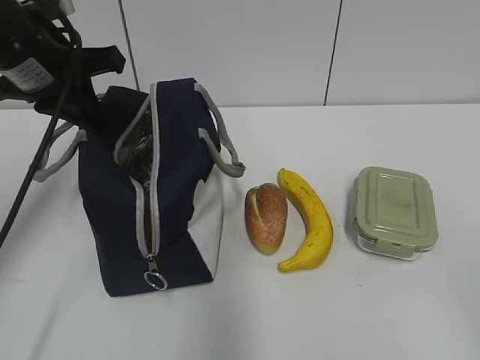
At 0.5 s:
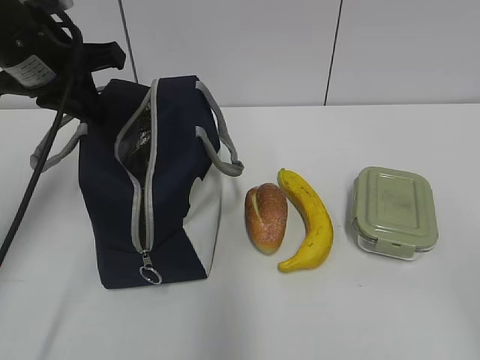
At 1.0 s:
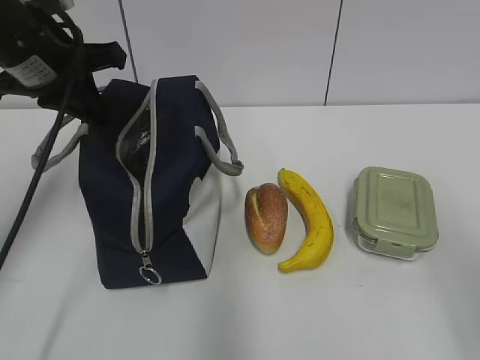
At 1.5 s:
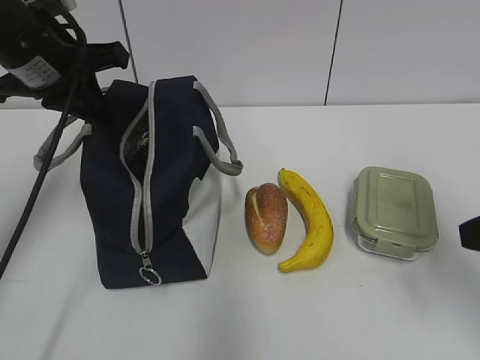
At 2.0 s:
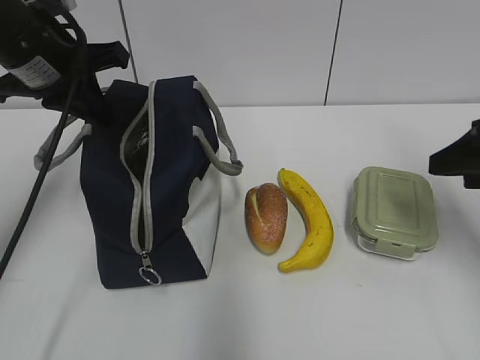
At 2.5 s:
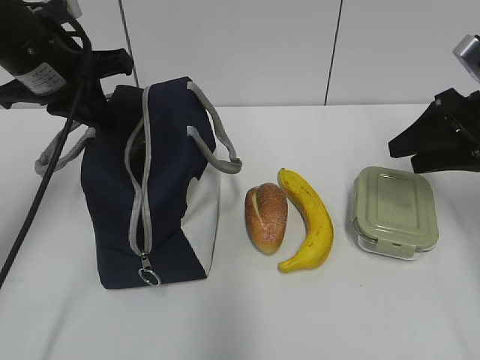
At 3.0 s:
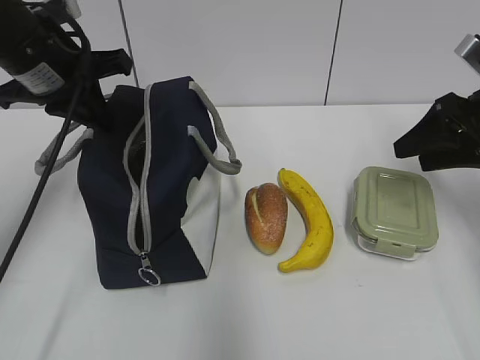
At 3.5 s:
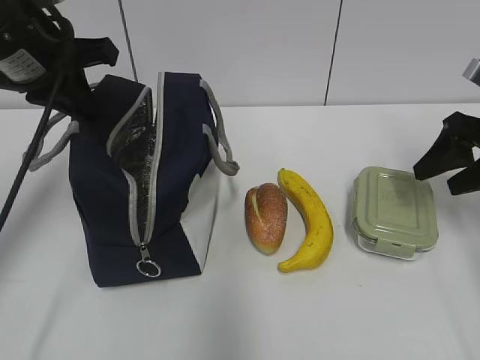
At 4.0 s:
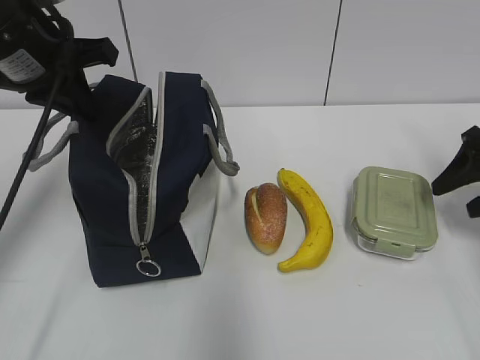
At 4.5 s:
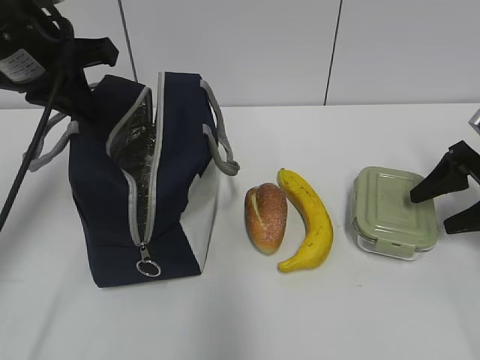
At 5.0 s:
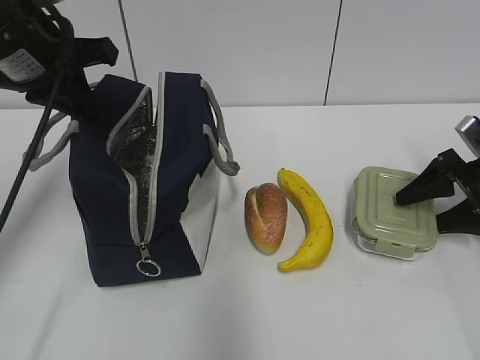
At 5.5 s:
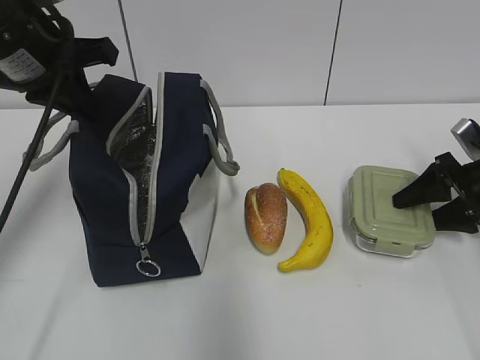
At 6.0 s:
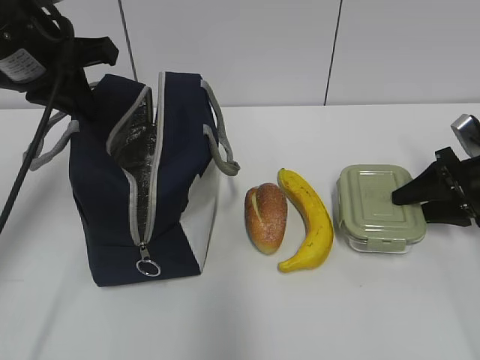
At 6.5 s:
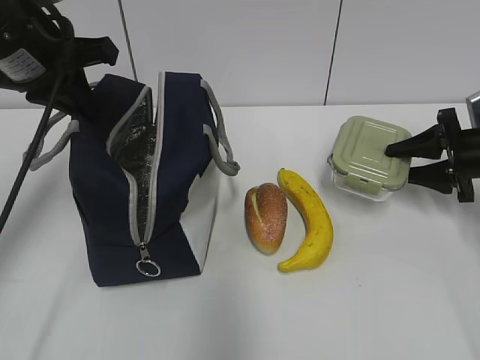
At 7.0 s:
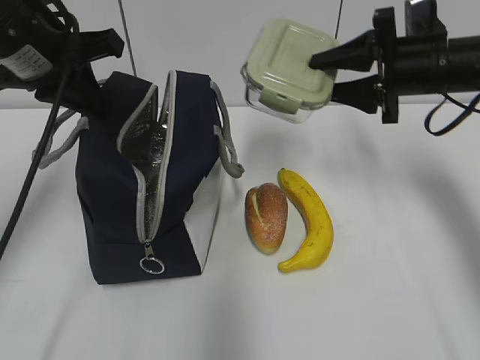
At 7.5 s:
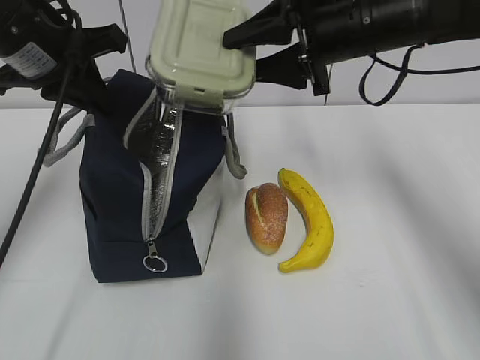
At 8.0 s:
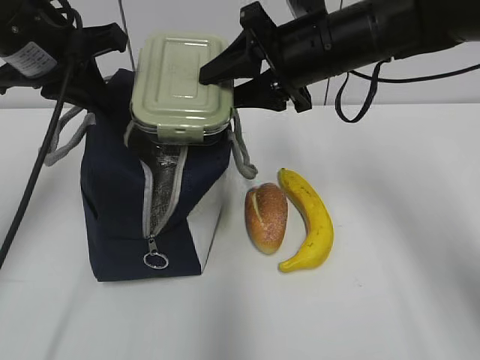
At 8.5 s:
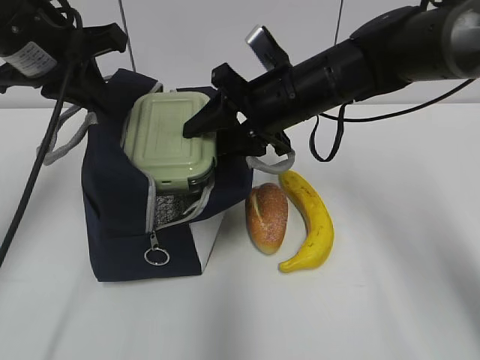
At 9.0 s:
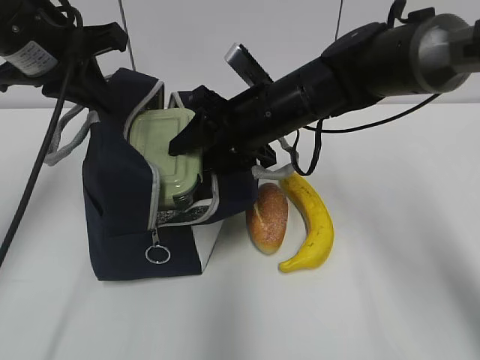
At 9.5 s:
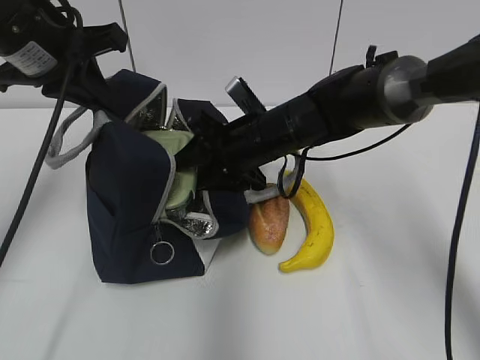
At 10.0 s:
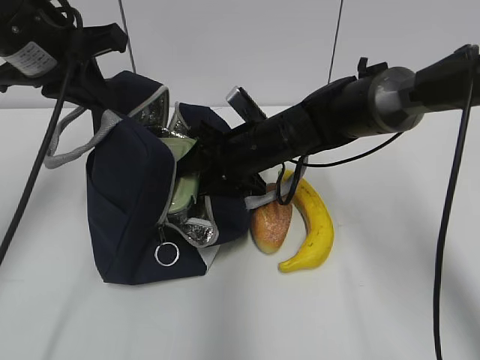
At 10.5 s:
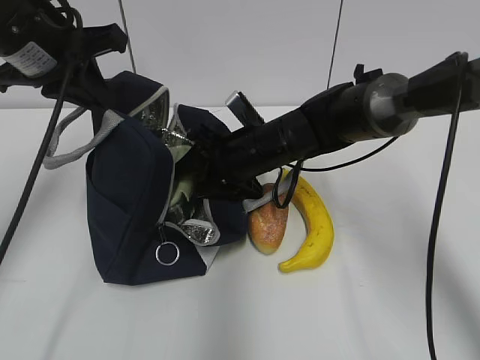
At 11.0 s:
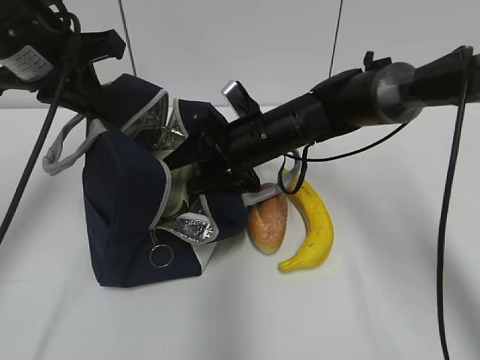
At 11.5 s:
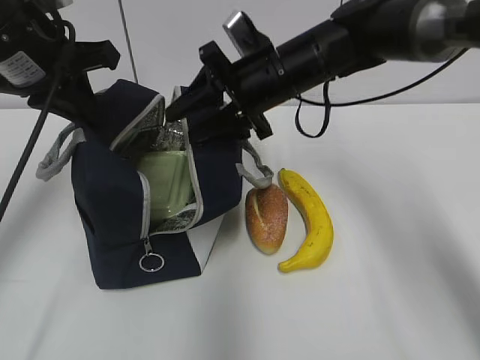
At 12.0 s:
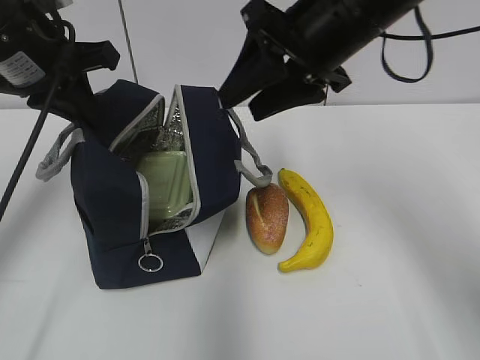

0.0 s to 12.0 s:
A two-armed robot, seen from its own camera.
Step, 0.0 to 5.5 s: Grab the lunch box with your right hand.
Step, 8.0 to 11.0 s: Place it into the bag with your right hand.
0.0 to 2.0 s: The right gripper travels forward by roughly 25 cm.
2.0 to 4.0 s: The right gripper is displaced forward, to the right and downward by about 10 cm.
4.0 to 6.0 s: The right gripper goes some 5 cm downward.
6.0 to 8.0 s: The right gripper is displaced to the left and upward by about 30 cm.
8.0 to 10.0 s: The right gripper is displaced downward and to the left by approximately 15 cm.
10.0 to 12.0 s: The right gripper moves upward, about 20 cm.

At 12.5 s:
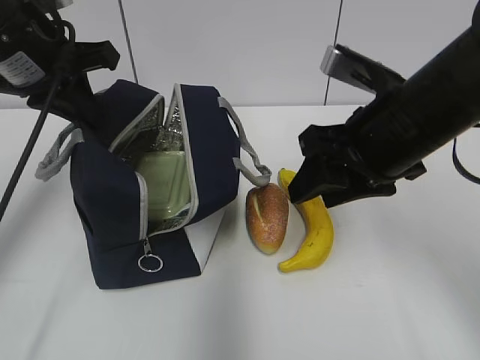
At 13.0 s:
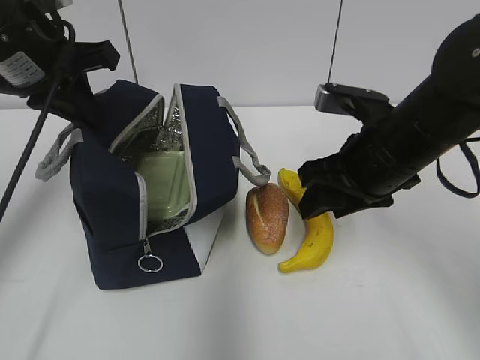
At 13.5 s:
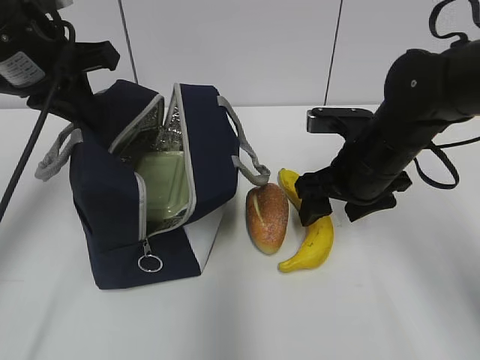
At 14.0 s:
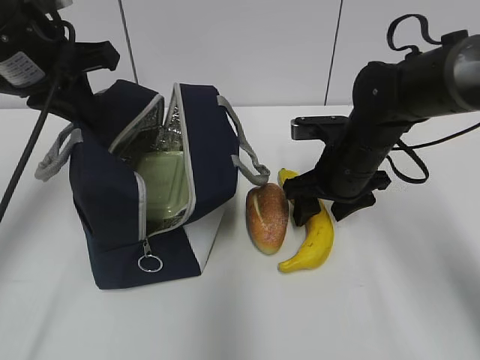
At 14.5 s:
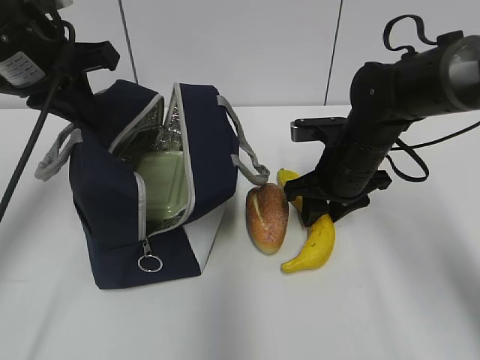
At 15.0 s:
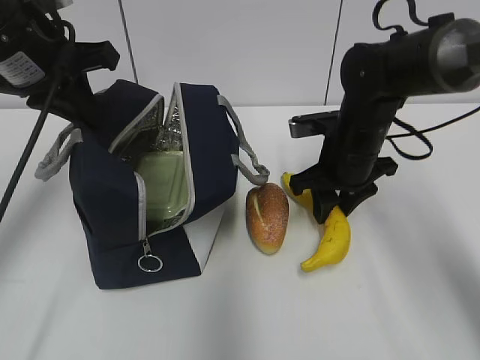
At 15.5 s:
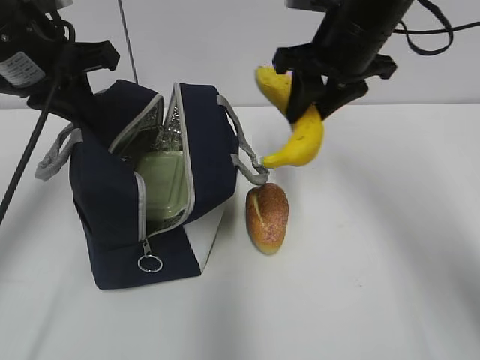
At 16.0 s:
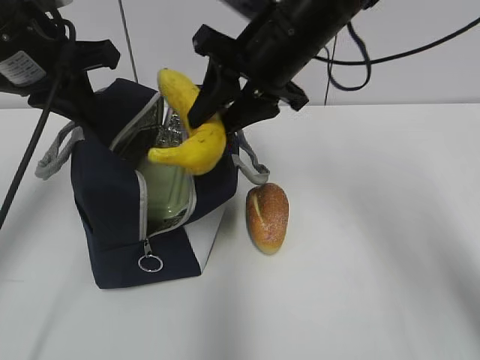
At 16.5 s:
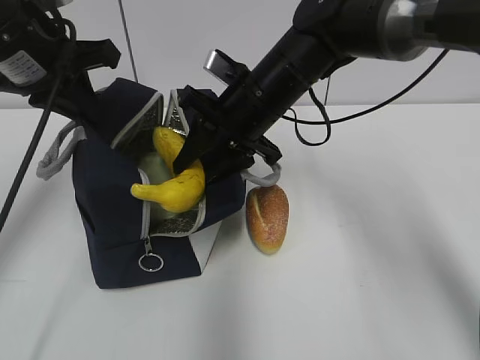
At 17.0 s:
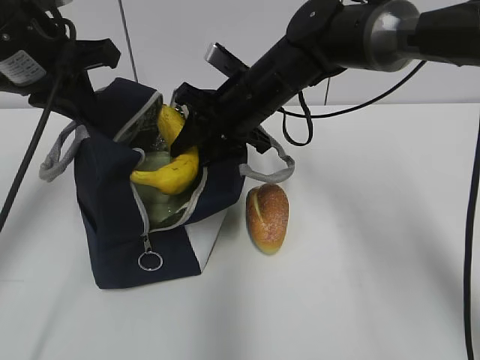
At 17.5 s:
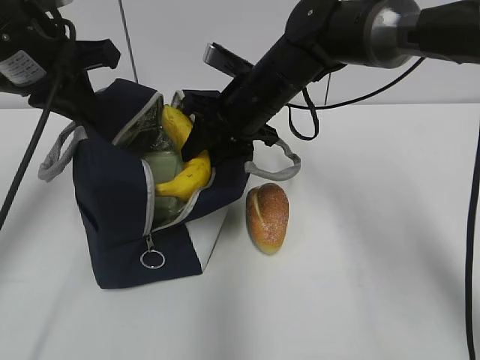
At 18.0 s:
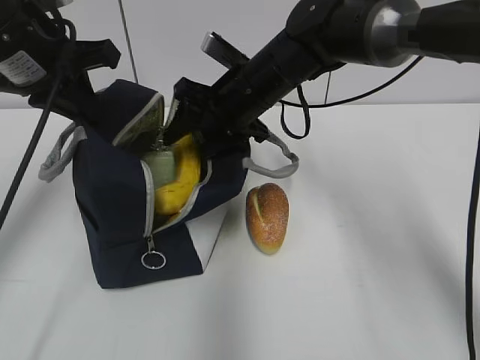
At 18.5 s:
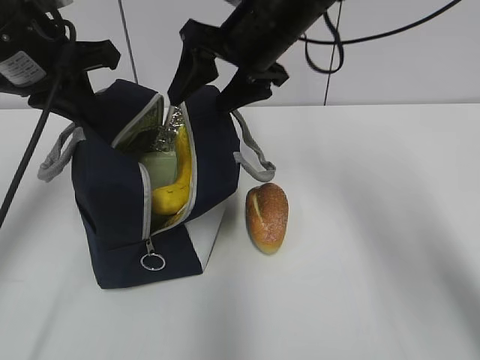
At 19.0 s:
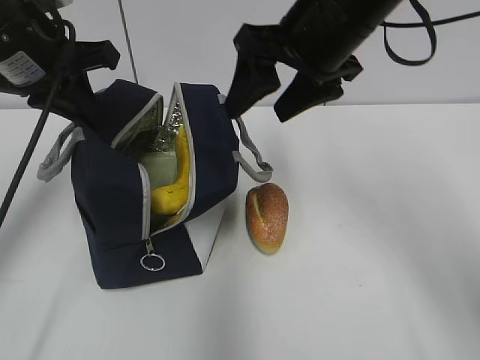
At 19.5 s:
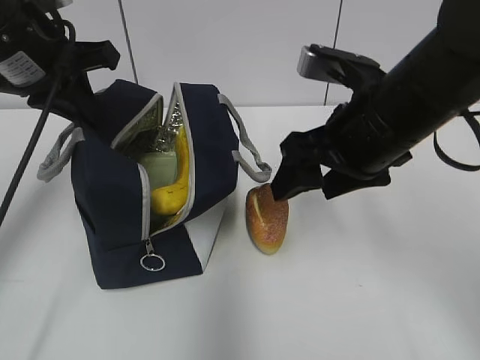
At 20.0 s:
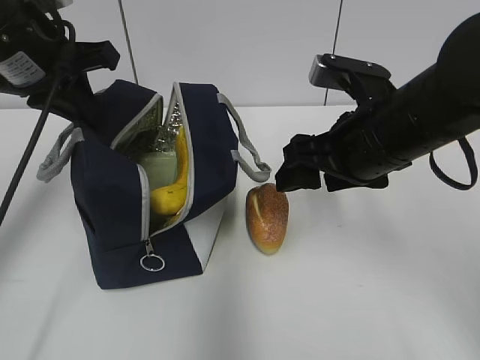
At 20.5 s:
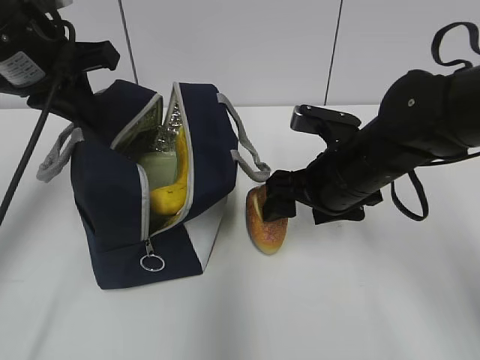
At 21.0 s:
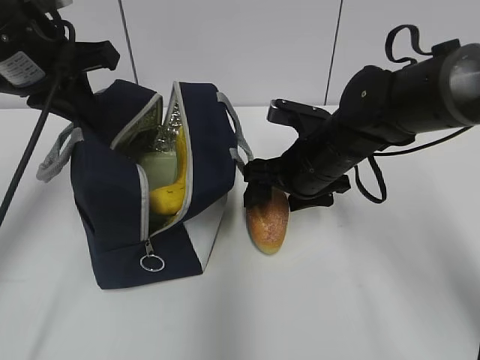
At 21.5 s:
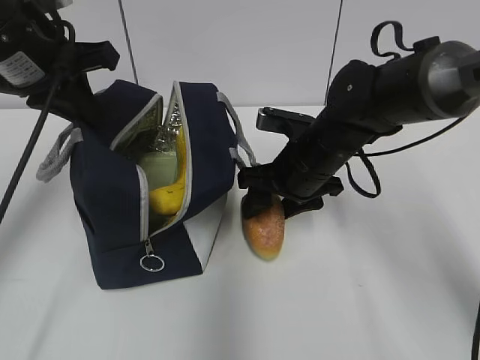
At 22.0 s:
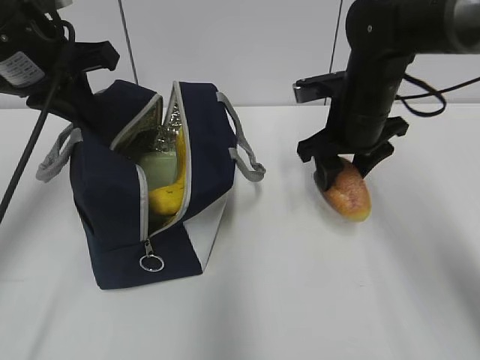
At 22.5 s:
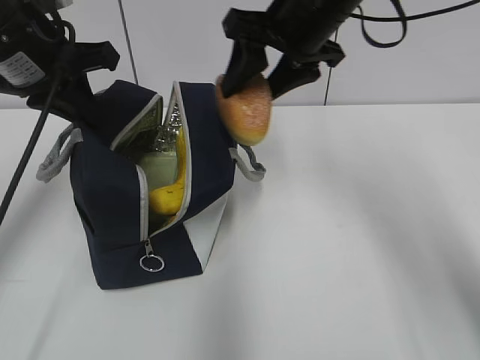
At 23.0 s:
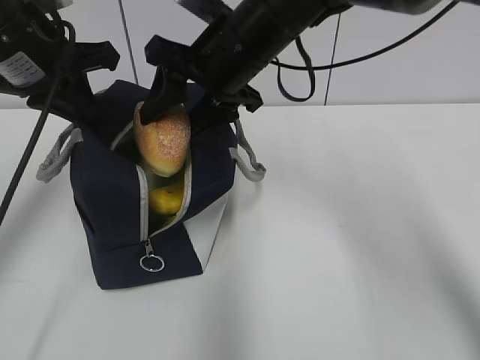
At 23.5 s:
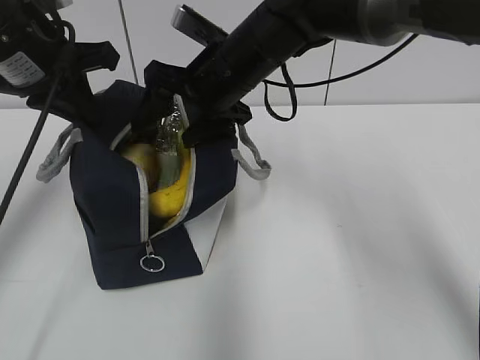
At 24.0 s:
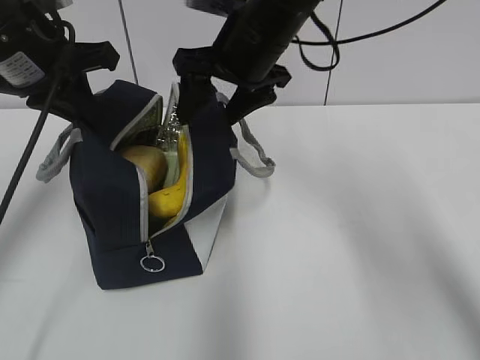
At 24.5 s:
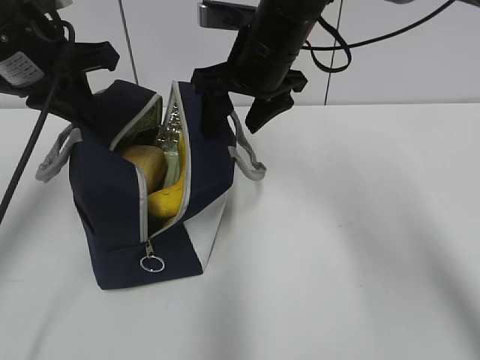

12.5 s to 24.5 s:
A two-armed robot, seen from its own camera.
Step, 12.5 to 14.5 s: Grab the banana with your right hand.
Step, 15.0 to 18.0 s: Place it into the bag with your right hand.
Step, 18.5 to 21.0 s: Grab the bread with your right hand.
12.5 to 14.5 s: The right gripper moves downward and forward, some 15 cm.
14.5 to 16.5 s: The right gripper is displaced to the left and upward by approximately 15 cm.
16.5 to 18.5 s: The right gripper travels upward by some 5 cm, and opens up.
18.5 to 20.5 s: The right gripper travels downward, backward and to the right by about 15 cm.
20.5 to 22.5 s: The right gripper heads upward and forward, covering some 15 cm.

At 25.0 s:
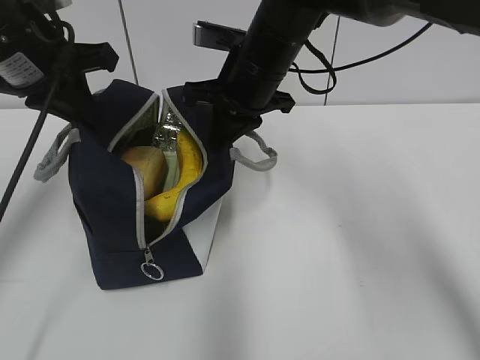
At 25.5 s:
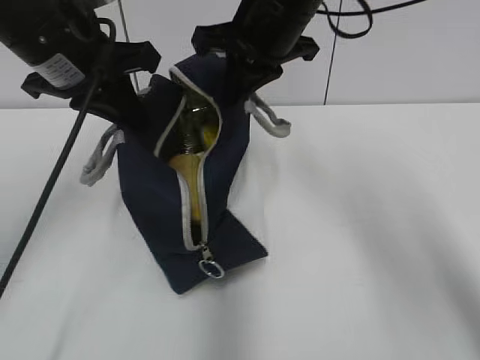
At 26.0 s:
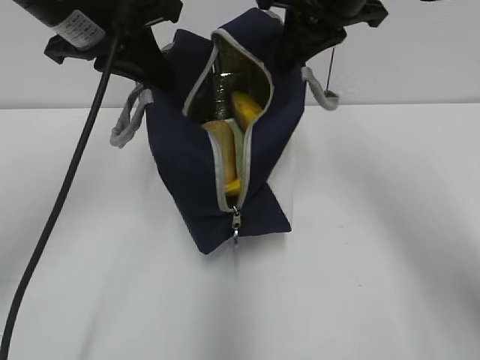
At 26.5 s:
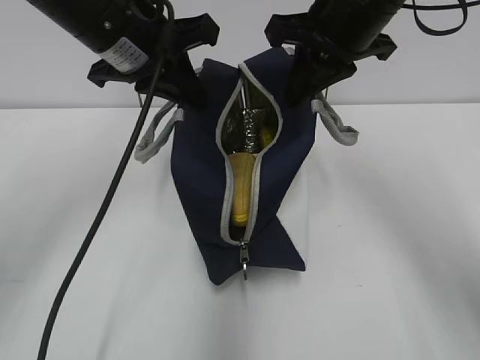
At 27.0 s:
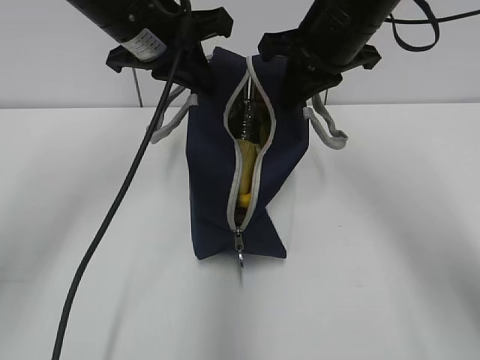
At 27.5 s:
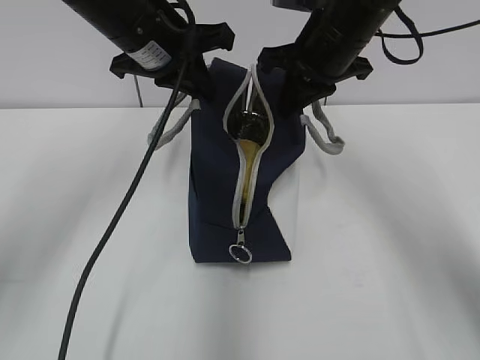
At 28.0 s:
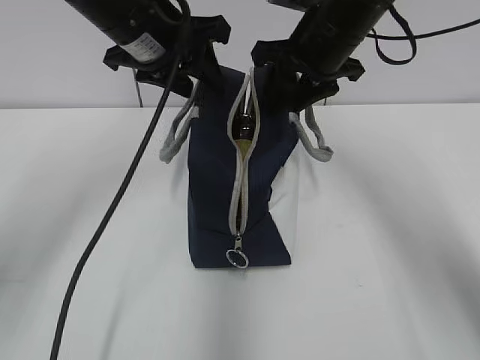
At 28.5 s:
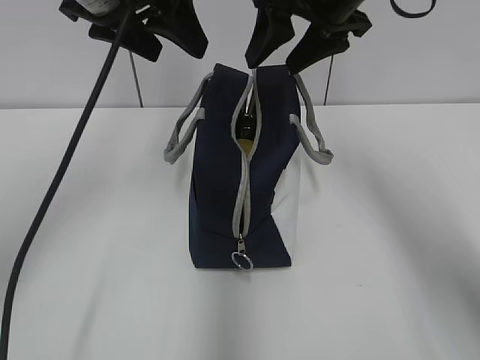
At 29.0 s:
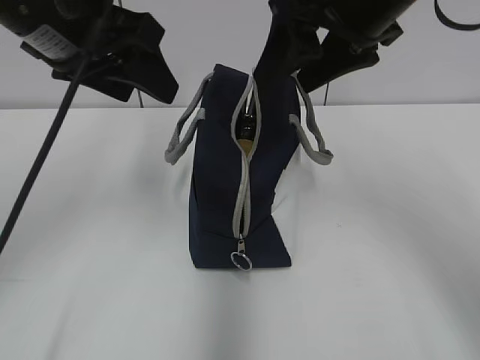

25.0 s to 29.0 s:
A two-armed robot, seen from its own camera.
Step, 25.5 to 28.0 s: Move the lunch bag to the right.
25.0 to 27.0 s: The right gripper shifts about 10 cm to the right and upward; the left gripper moves to the right, some 10 cm.
27.0 to 29.0 s: The two grippers go about 5 cm backward. The left gripper opens; the right gripper opens.
